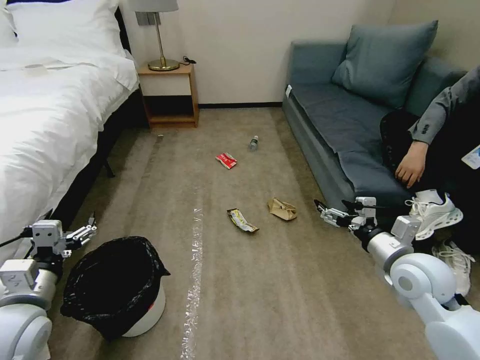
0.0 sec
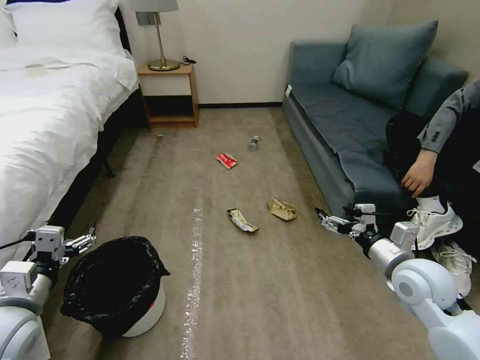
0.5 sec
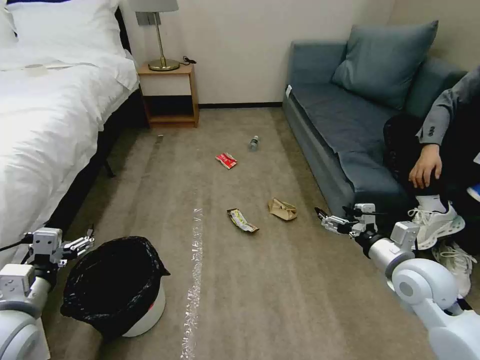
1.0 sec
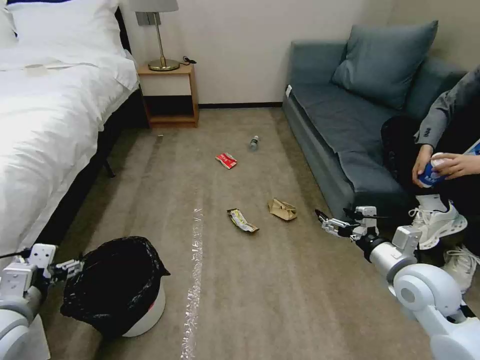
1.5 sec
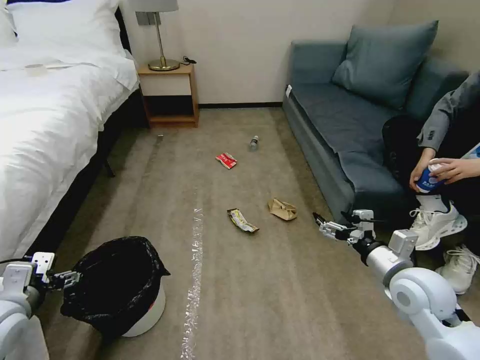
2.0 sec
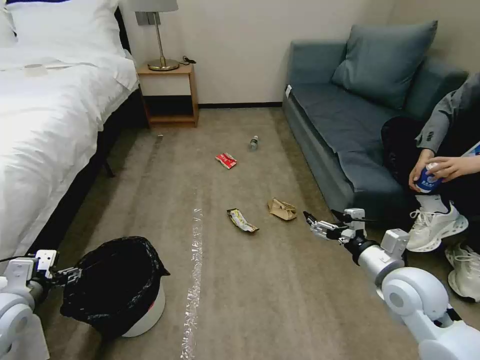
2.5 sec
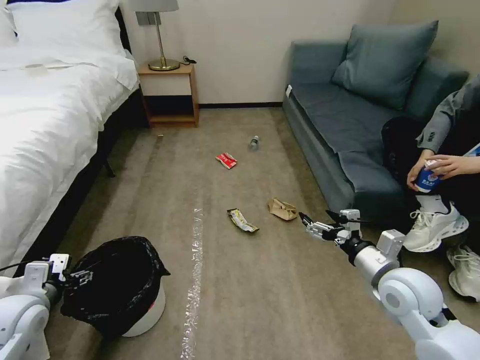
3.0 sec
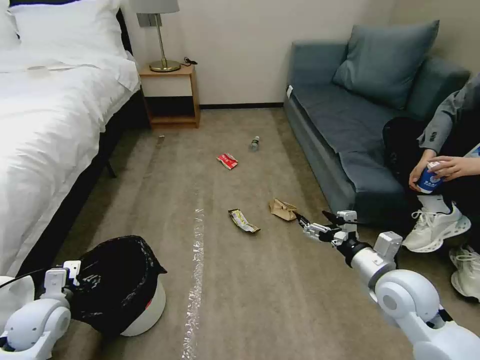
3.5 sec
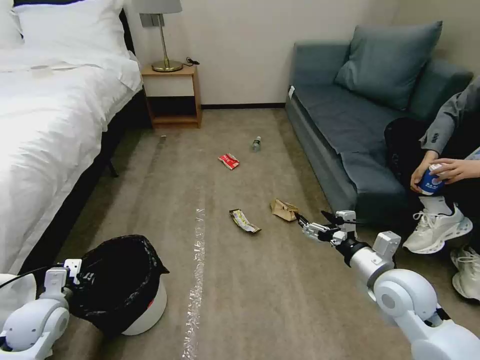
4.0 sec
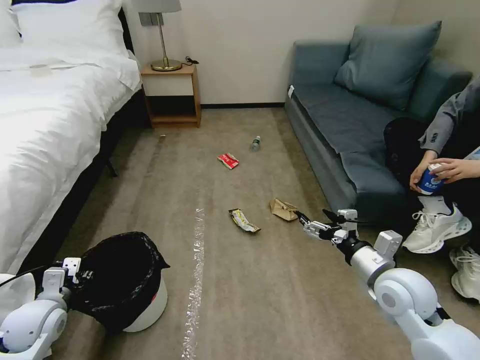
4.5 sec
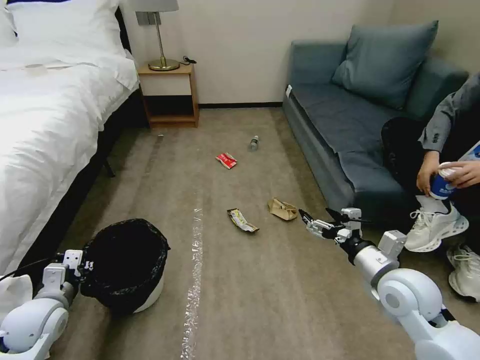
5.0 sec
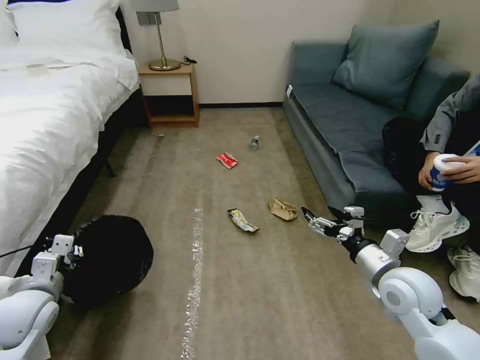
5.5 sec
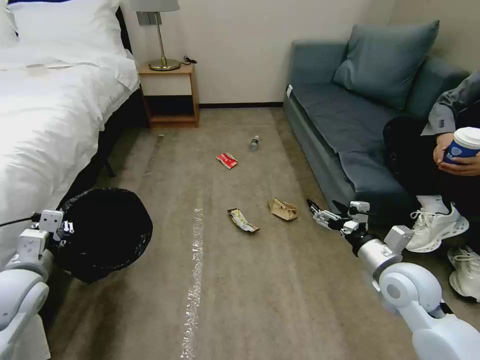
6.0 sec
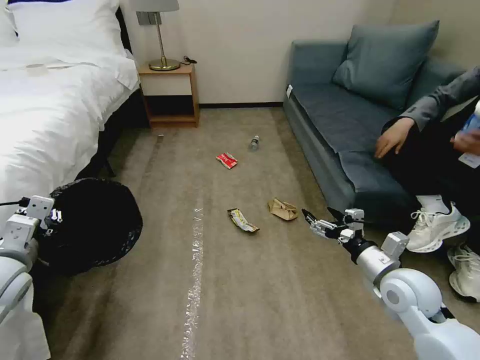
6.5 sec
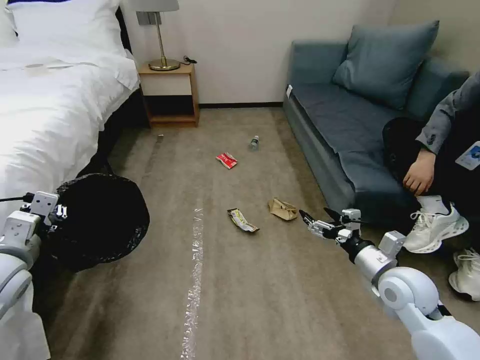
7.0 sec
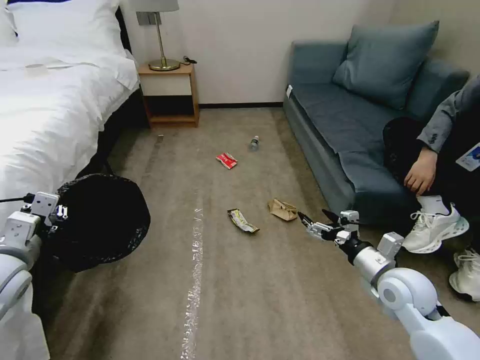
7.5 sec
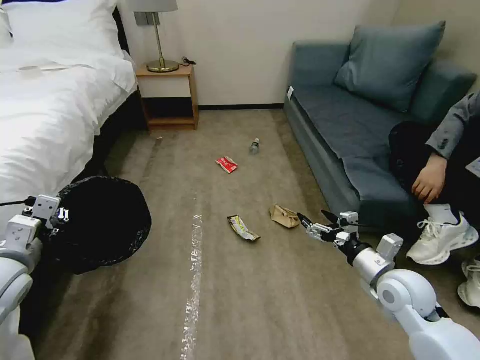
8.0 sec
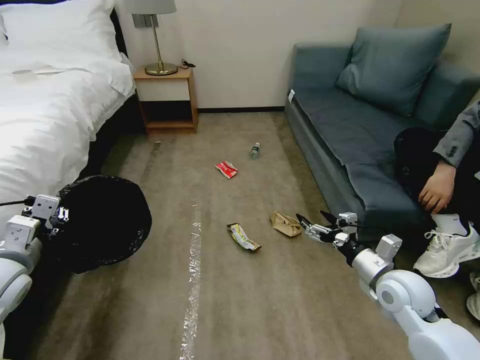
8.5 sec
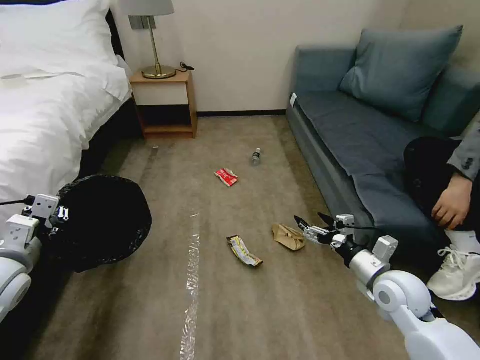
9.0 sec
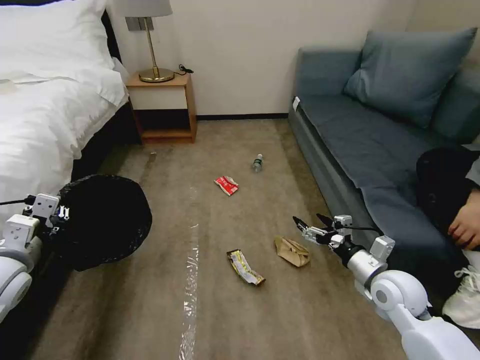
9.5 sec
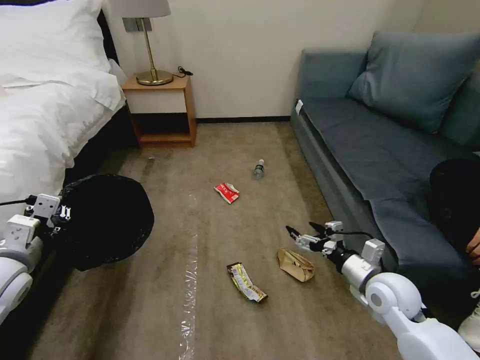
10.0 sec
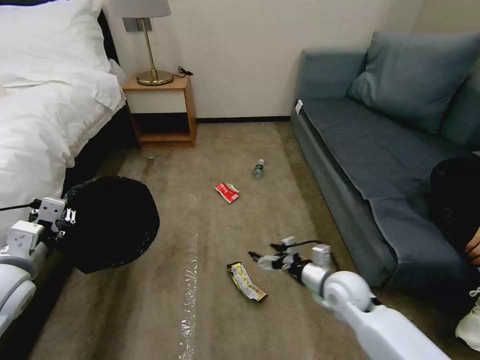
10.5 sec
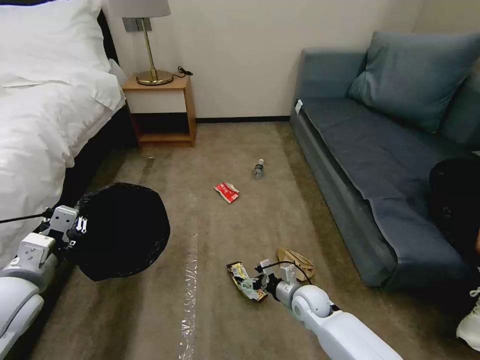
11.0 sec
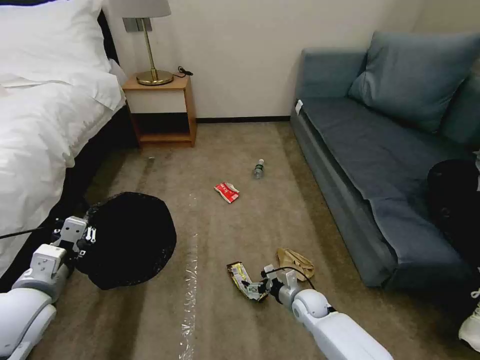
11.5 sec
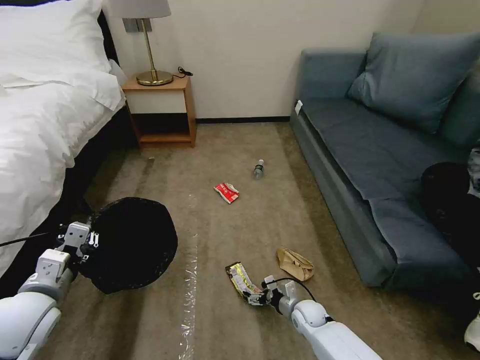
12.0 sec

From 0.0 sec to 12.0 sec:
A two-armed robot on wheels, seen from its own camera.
Task of the whole recording: Pick up the trash bin, then pick up the garbage on the floor and place it into the trash bin.
From 2.0 sec to 4.0 sec: The left gripper heads downward, covering some 10 cm, and closes up.
From 4.0 sec to 6.0 sec: The left gripper shifts approximately 10 cm upward.
From 6.0 sec to 8.0 sec: The grippers stay close to where they were, moving slightly.
From 10.0 sec to 12.0 sec: The right gripper travels downward and to the left by approximately 25 cm. The left gripper ends up about 10 cm from where it was.

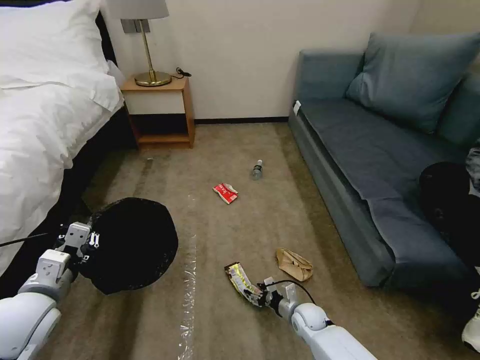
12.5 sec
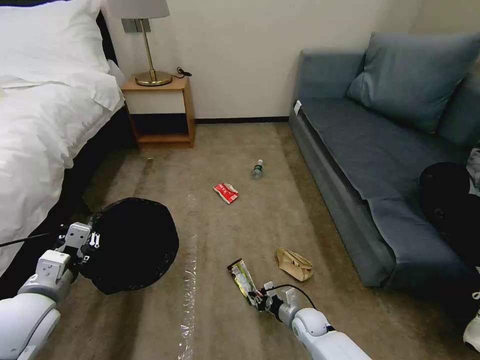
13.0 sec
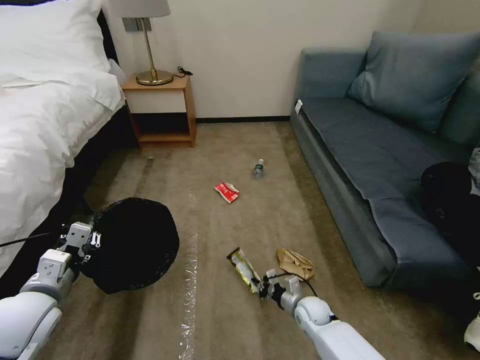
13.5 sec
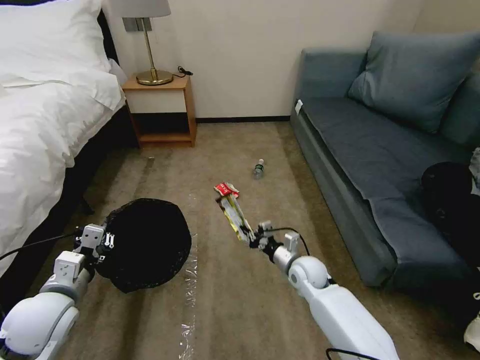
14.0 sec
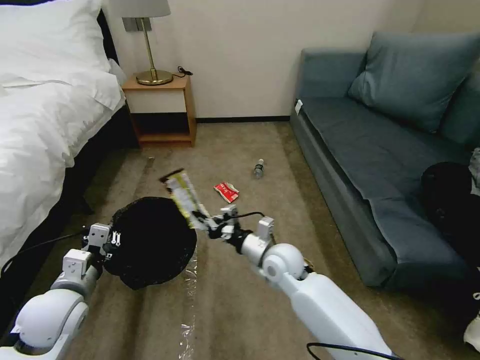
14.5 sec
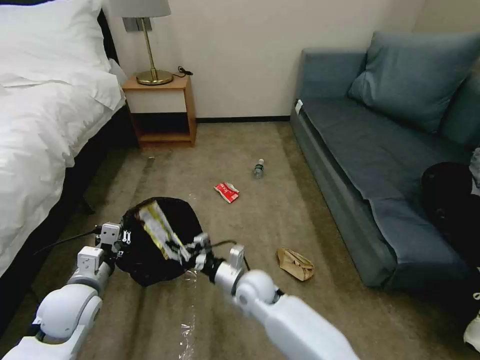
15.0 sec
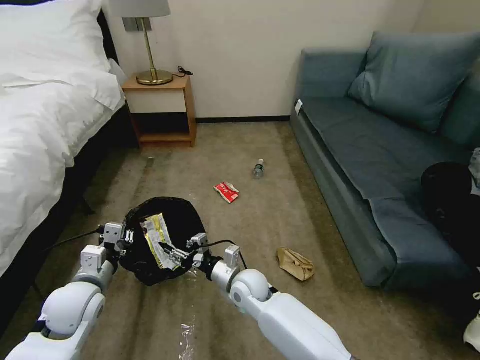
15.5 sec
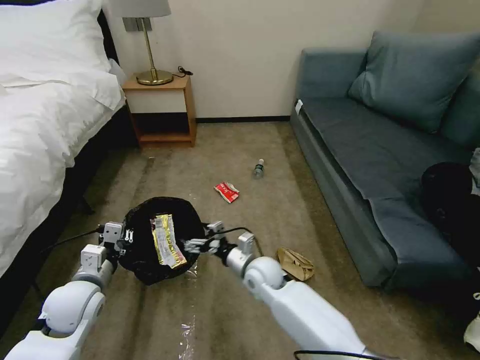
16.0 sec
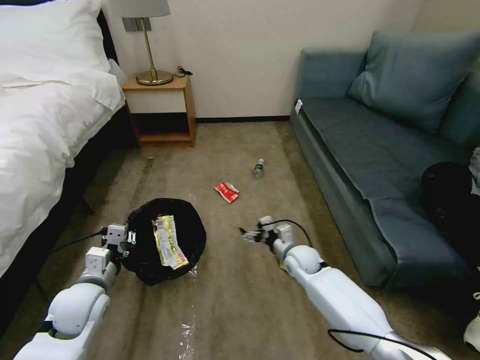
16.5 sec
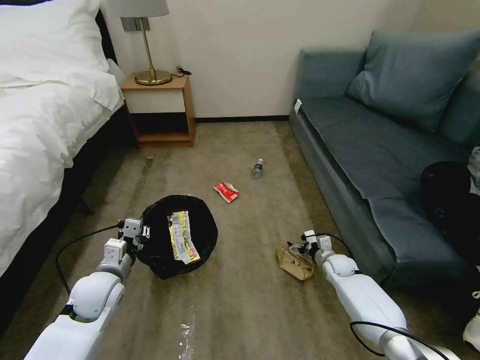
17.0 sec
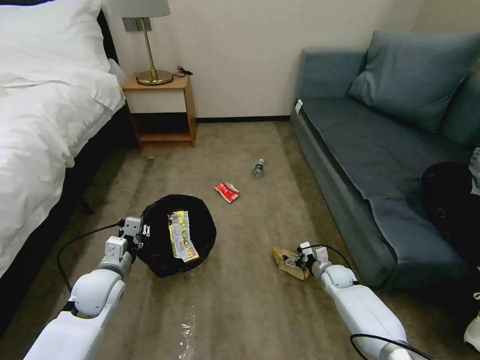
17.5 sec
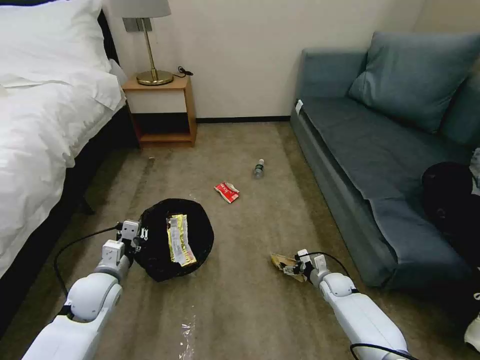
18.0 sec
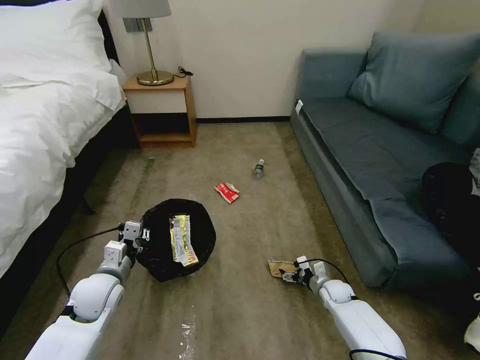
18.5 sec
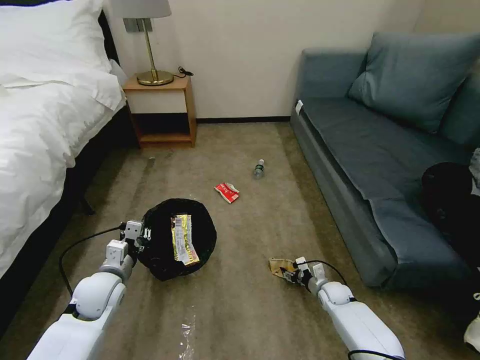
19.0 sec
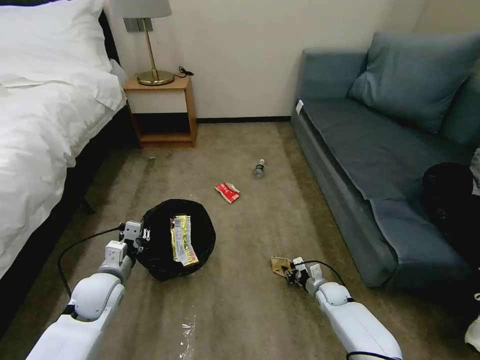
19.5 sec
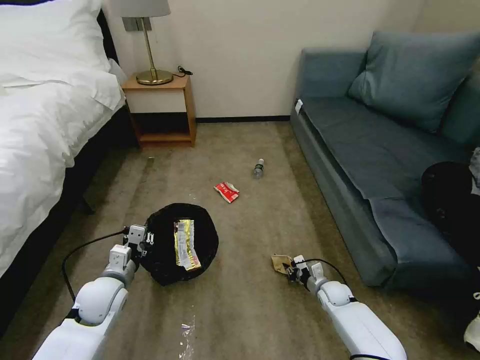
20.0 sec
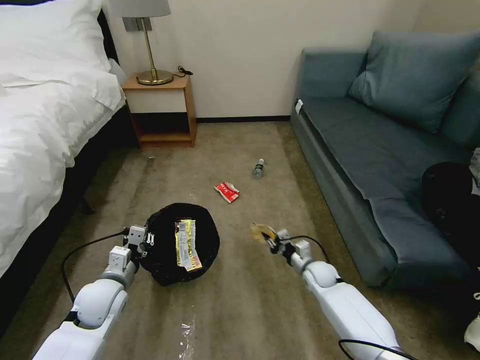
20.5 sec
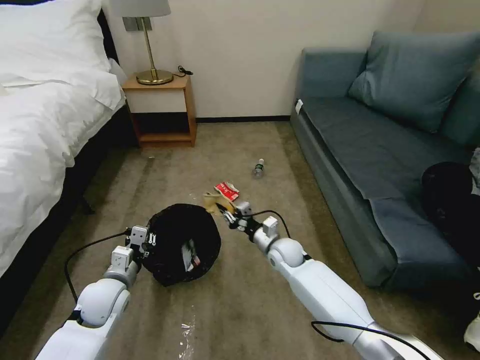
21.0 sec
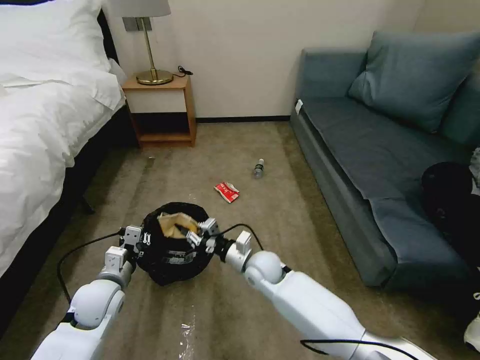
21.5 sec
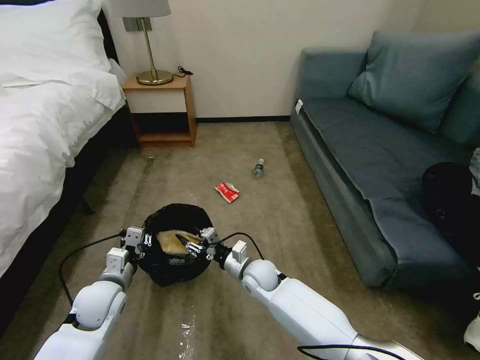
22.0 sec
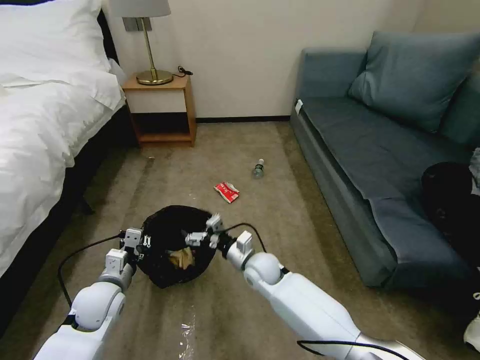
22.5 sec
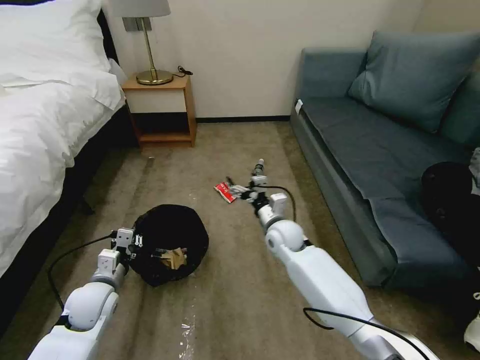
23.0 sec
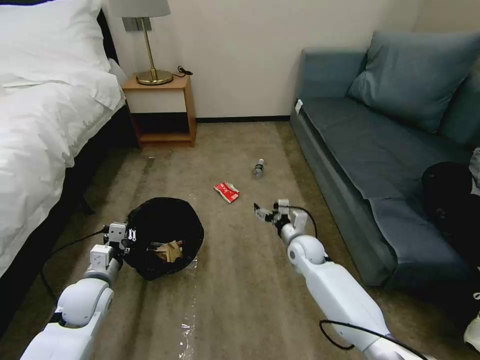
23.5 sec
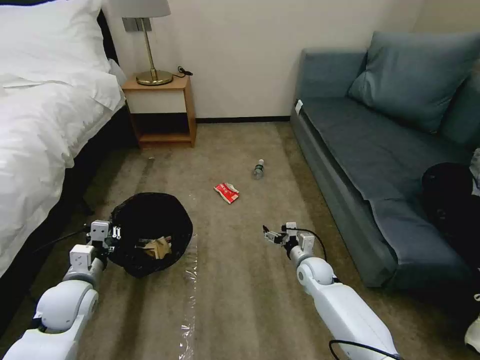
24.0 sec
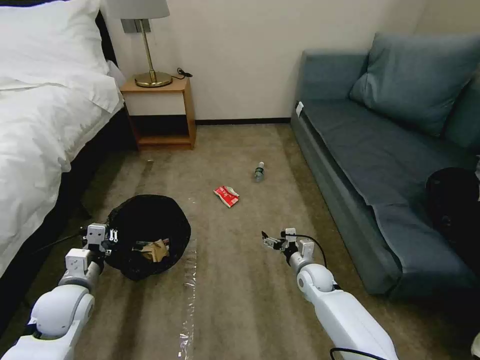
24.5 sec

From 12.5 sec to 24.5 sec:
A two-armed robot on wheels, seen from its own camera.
Task of the whole recording: Pick up the trash bin, then pick up the garbage on the floor and place it into the trash bin.
From 12.5 sec to 14.5 sec: The right gripper is displaced upward and to the left by roughly 25 cm, and closes its fingers.
From 14.5 sec to 16.5 sec: The left gripper ends up about 5 cm from where it was; the right gripper goes approximately 15 cm downward, to the right and forward, and opens.
From 16.5 sec to 18.5 sec: The right gripper shifts roughly 20 cm downward and to the right.
From 18.5 sec to 20.5 sec: The right gripper travels upward and to the left by about 10 cm, and closes up.
From 20.5 sec to 22.5 sec: The right gripper is displaced to the left and upward by some 20 cm, and opens.
From 22.5 sec to 24.5 sec: The right gripper goes about 15 cm to the right. Meanwhile the left gripper heads to the left, covering roughly 5 cm.

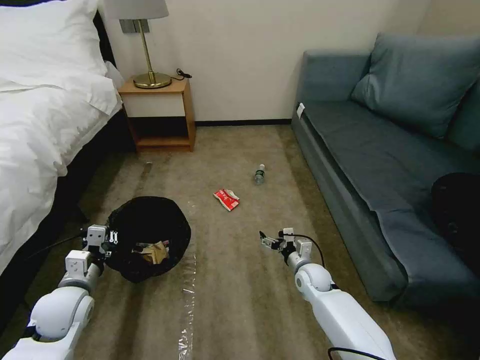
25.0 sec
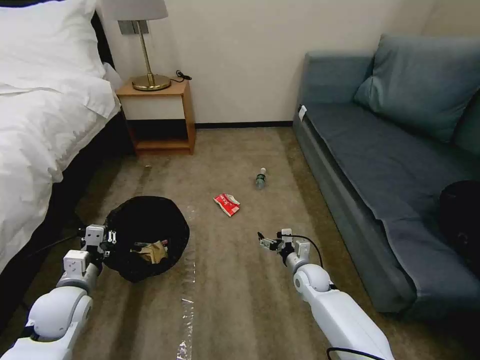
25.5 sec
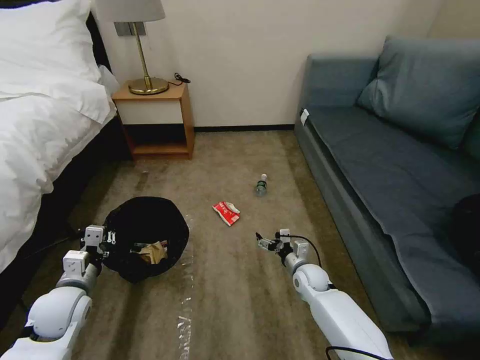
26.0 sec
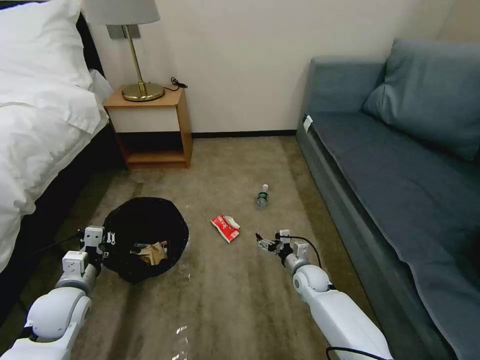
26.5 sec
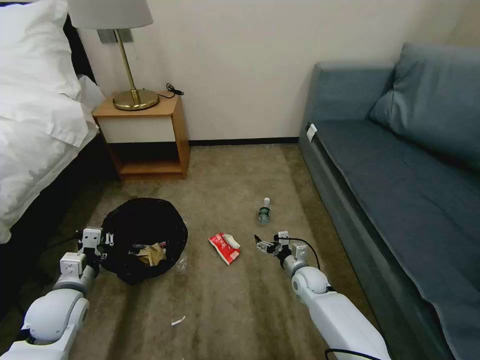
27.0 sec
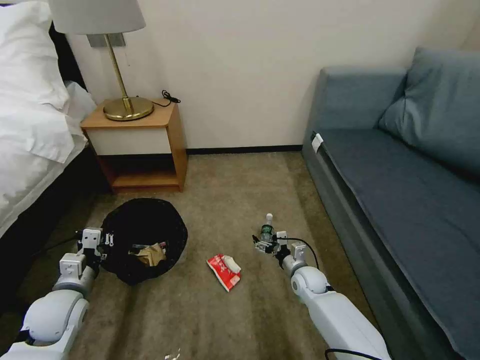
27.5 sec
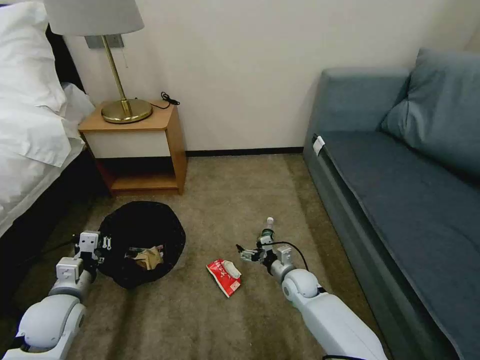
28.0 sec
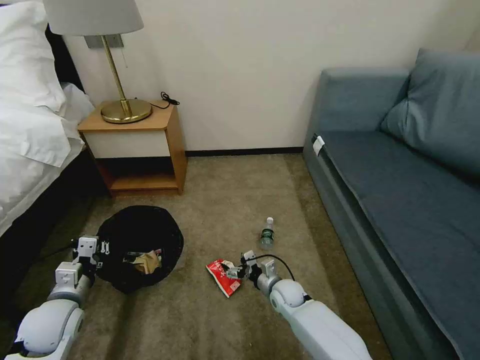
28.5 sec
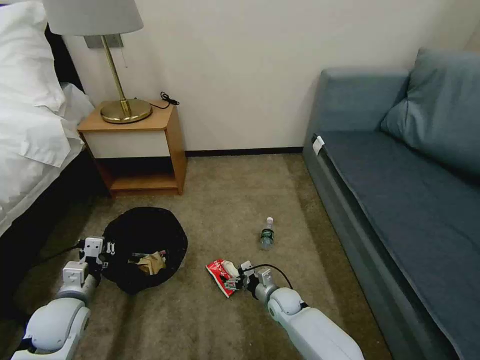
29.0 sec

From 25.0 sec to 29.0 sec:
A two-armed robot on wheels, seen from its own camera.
Task of the whole recording: Pick up the trash bin, then pick up the garbage on the floor and place it into the trash bin.
From 27.0 sec to 29.0 sec: The right gripper shifts approximately 10 cm to the left and downward.
